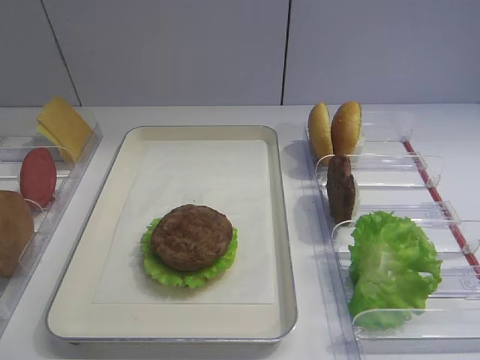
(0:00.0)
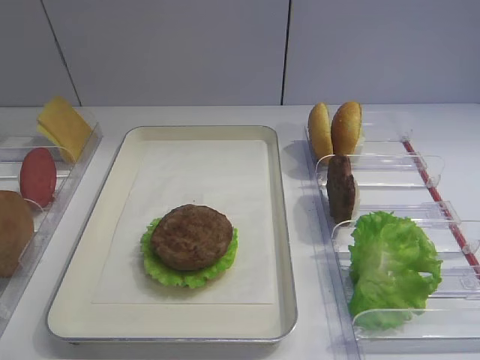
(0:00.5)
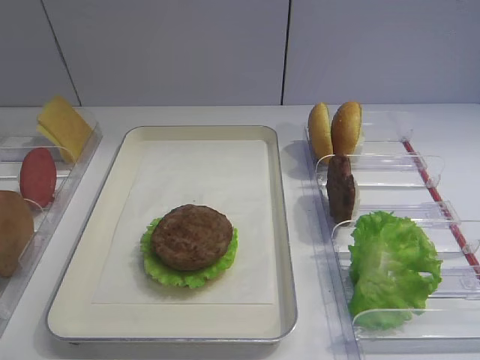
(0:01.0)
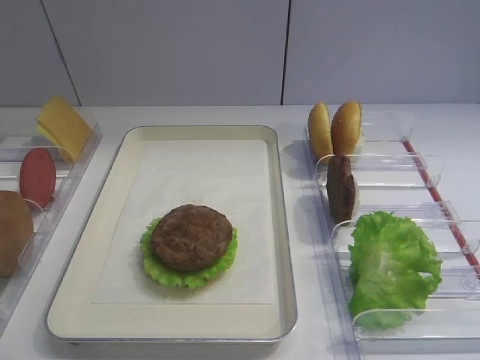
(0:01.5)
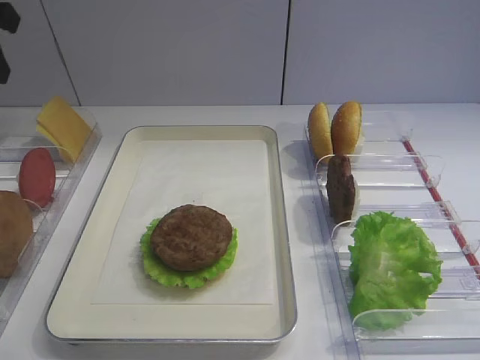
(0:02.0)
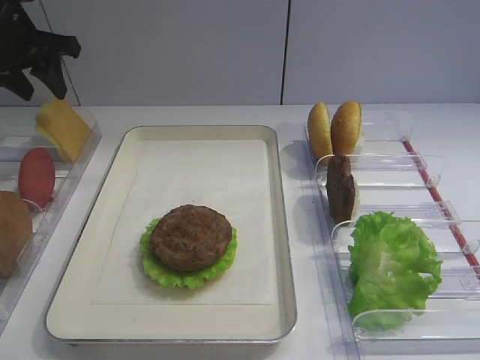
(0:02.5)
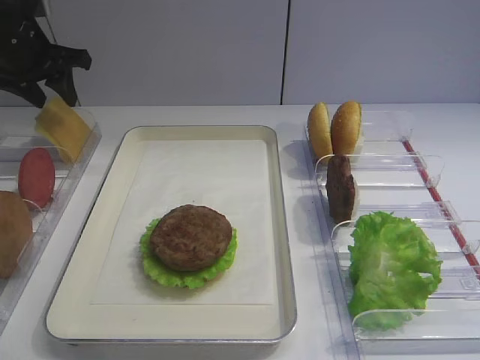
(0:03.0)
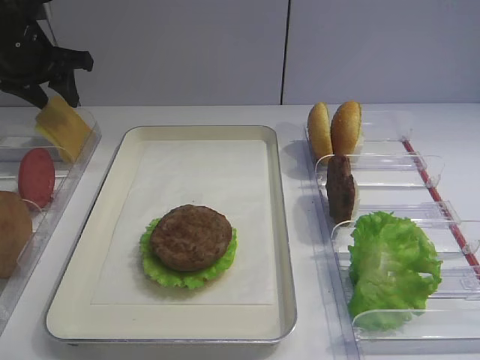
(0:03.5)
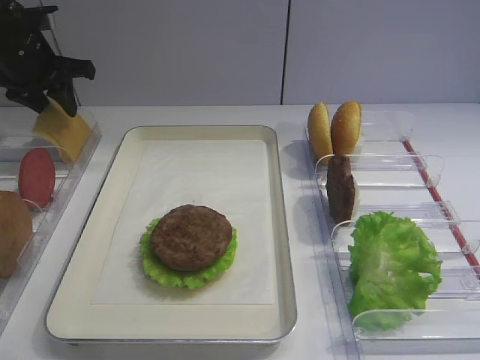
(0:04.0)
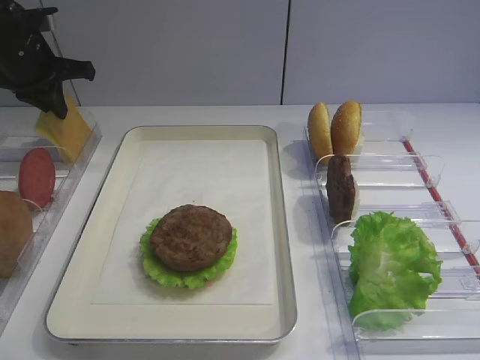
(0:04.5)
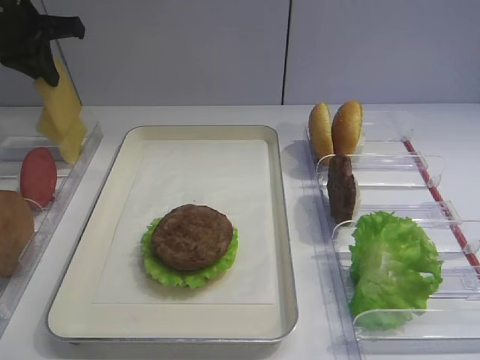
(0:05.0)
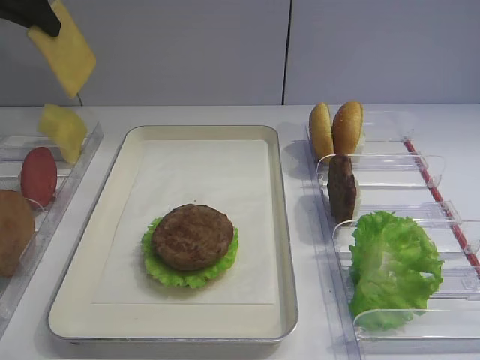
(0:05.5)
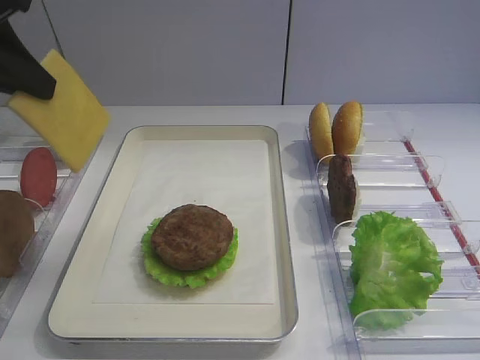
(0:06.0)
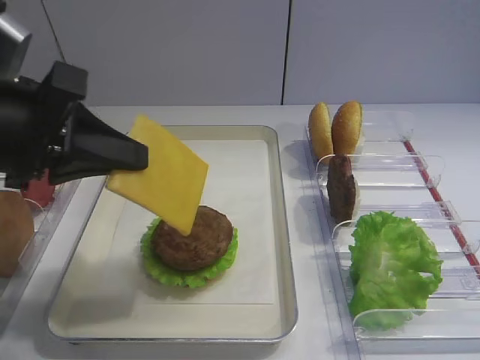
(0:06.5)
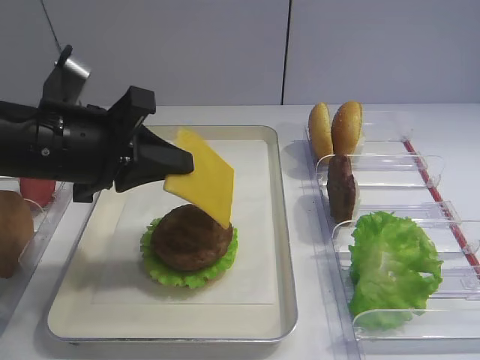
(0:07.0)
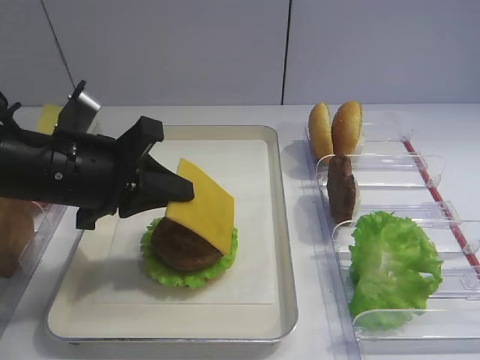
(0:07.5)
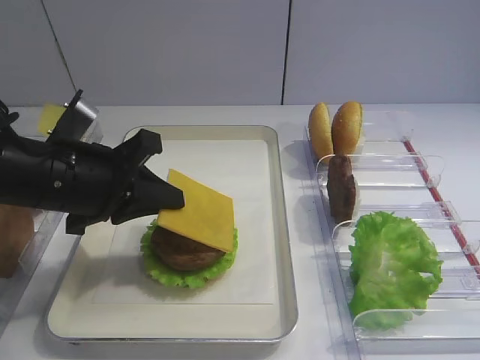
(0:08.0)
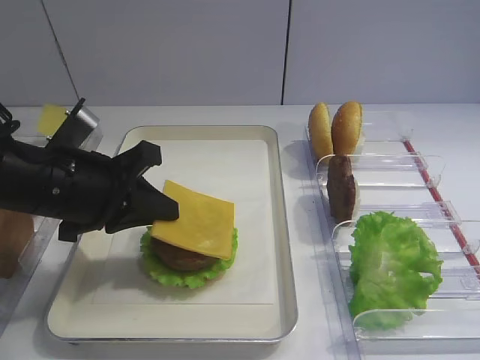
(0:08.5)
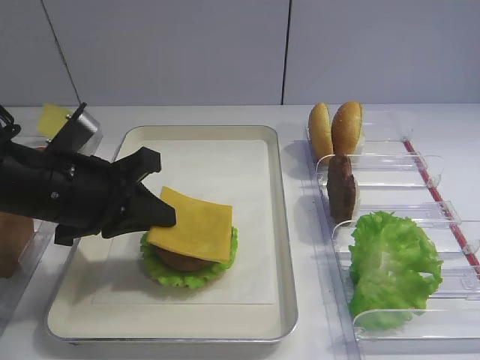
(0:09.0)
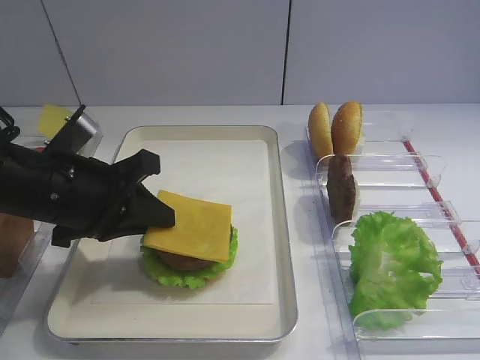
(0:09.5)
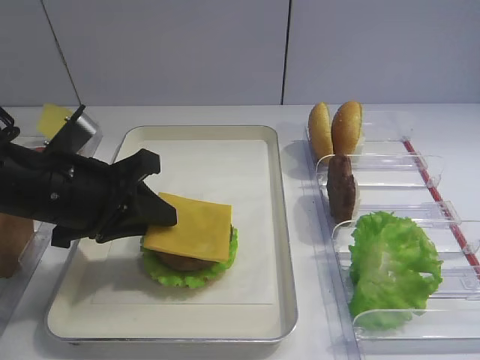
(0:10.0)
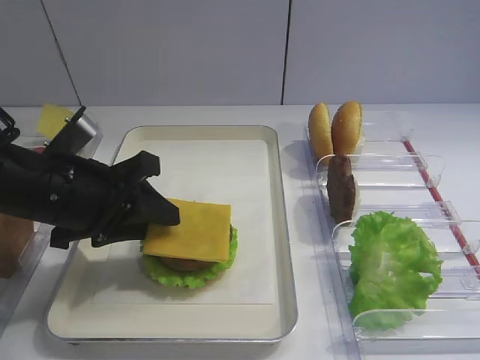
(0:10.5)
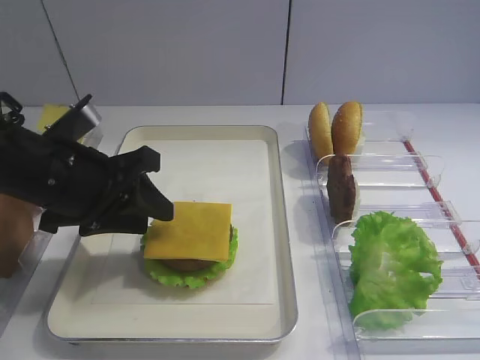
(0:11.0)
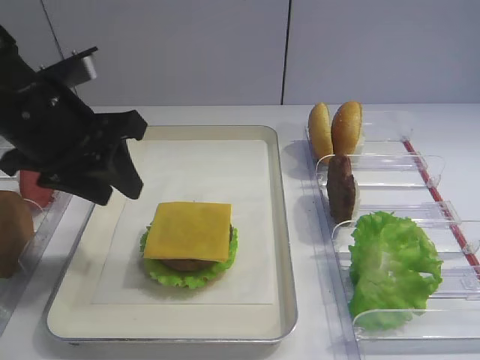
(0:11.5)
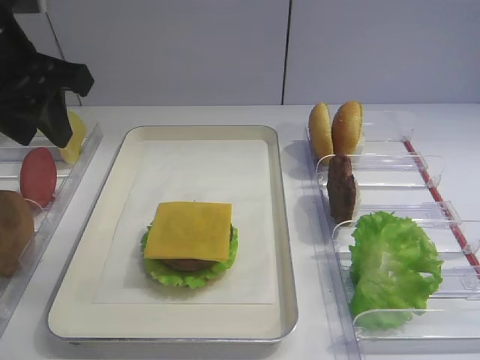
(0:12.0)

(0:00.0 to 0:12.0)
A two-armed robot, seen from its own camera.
Step, 0:00.0 - 0:05.0: Pick up the cheese slice with the left gripper.
Step, 0:05.5 - 0:11.0: Place the cheese slice on the cutlet with the left gripper.
0:02.0 - 0:04.0: The left gripper shifts approximately 15 cm forward and downward.
0:04.0 - 0:06.0: The left gripper shifts roughly 20 cm backward and upward, and closes.
0:06.0 - 0:08.0: The left gripper goes about 20 cm downward and to the right.
0:08.0 - 0:10.0: The left gripper opens up.
0:10.0 - 0:12.0: The left gripper moves upward, about 15 cm, and opens its fingers.

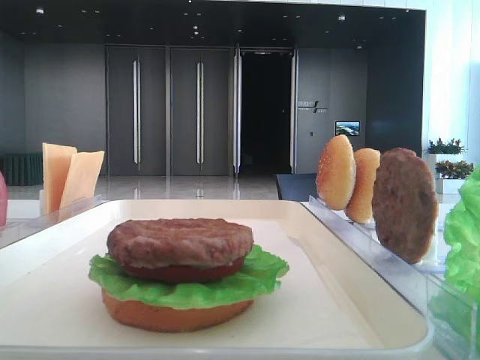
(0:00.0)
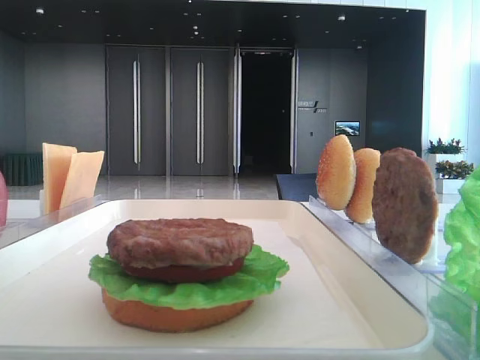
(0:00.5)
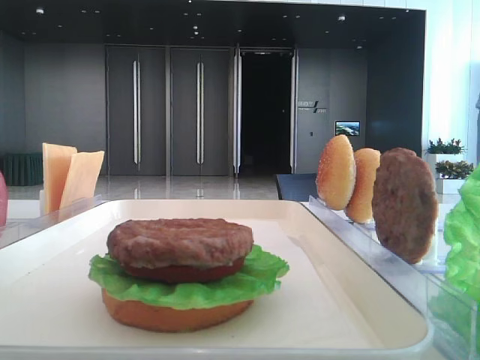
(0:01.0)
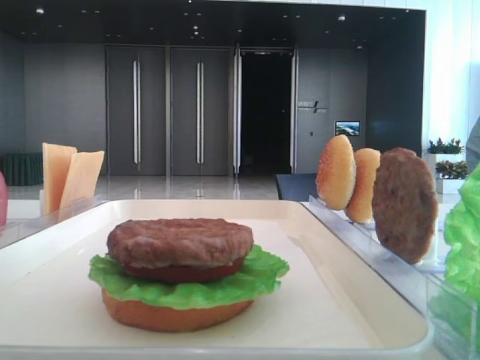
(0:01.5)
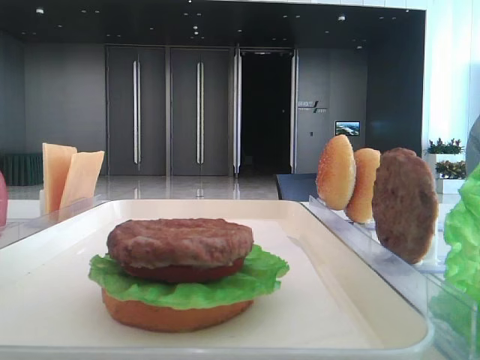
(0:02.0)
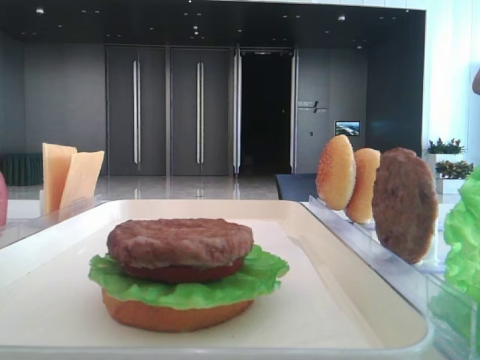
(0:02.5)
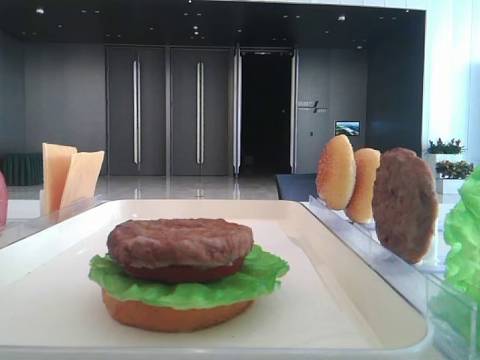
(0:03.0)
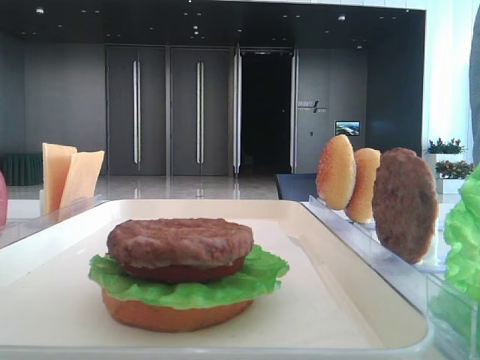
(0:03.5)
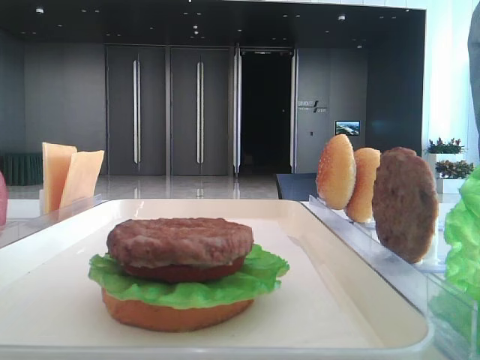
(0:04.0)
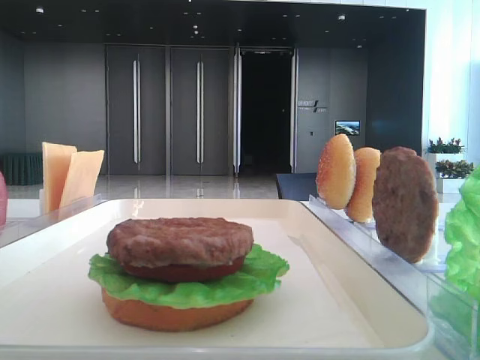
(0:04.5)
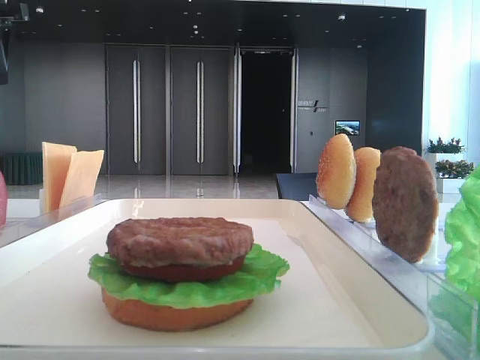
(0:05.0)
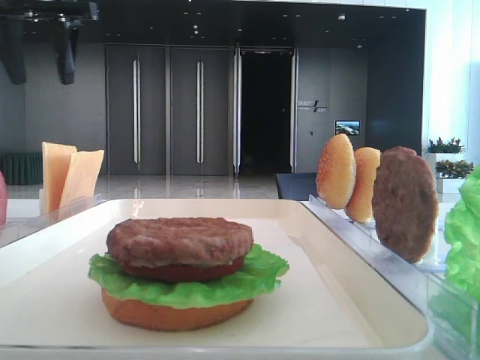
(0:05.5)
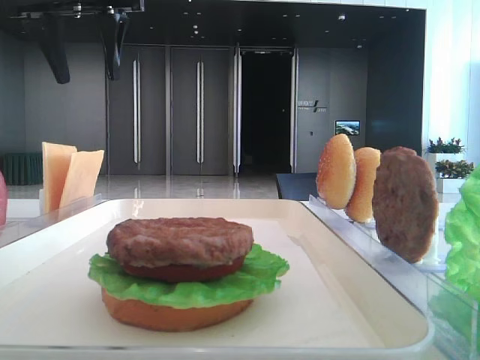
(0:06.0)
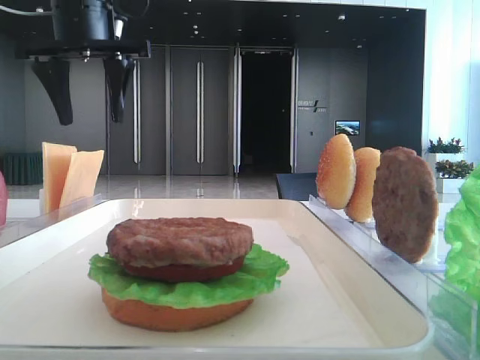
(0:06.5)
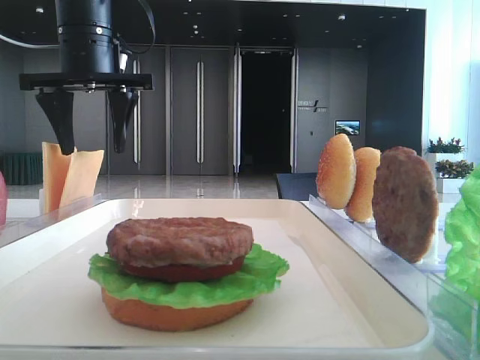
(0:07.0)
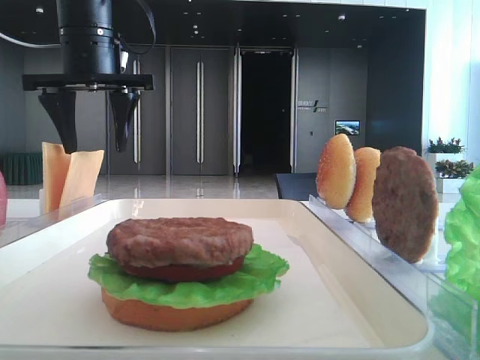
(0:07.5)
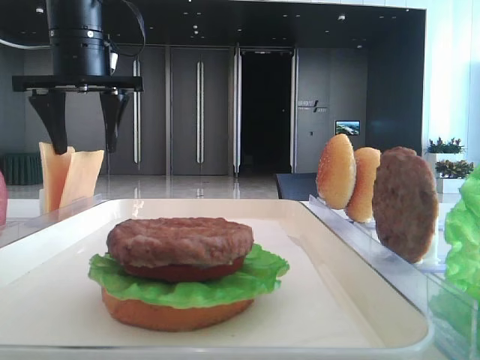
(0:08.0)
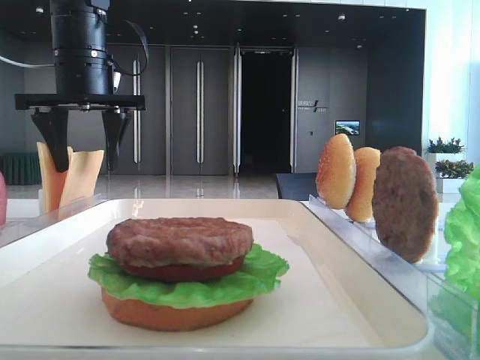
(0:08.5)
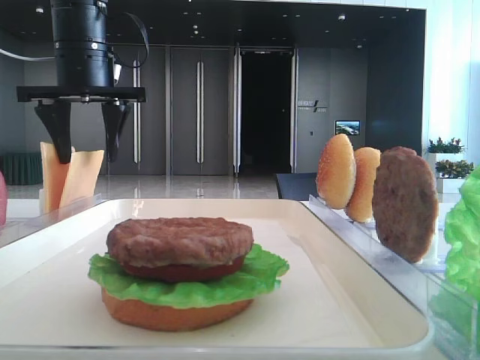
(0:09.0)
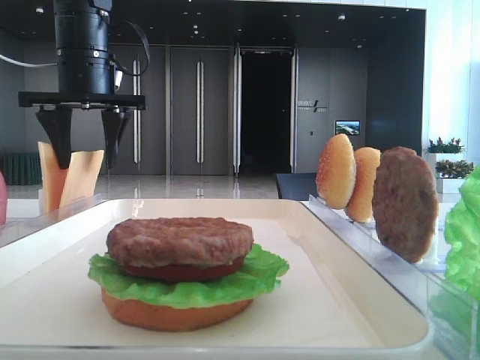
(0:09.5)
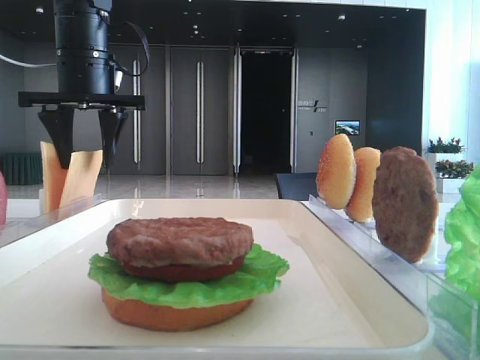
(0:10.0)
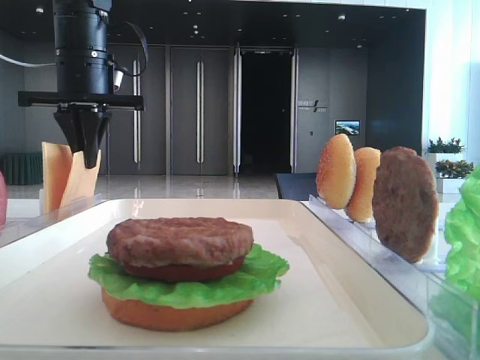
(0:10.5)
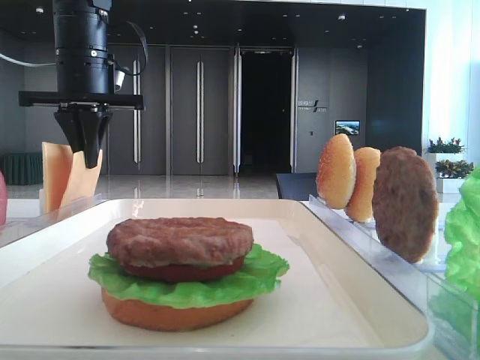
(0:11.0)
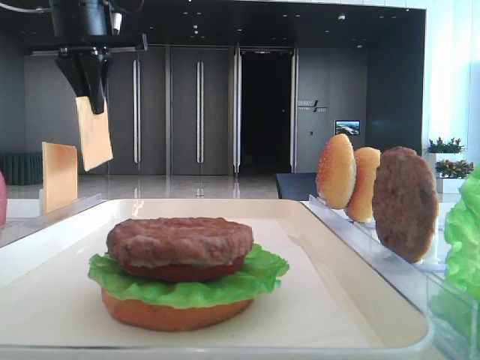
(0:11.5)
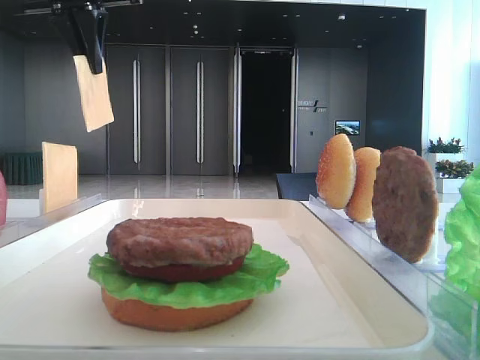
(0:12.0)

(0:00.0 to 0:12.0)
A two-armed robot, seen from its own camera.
Step, 0:00.0 - 0:10.0: Pick up the cheese slice with the left hand.
0:04.0 - 0:06.0: The left gripper heads forward and to the right, covering about 20 cm.
0:06.0 - 0:08.0: The left gripper travels downward by some 10 cm.
0:08.0 - 0:10.0: The grippers make only small movements.
0:10.0 - 0:12.0: The left gripper travels upward by approximately 10 cm, and closes its fingers.

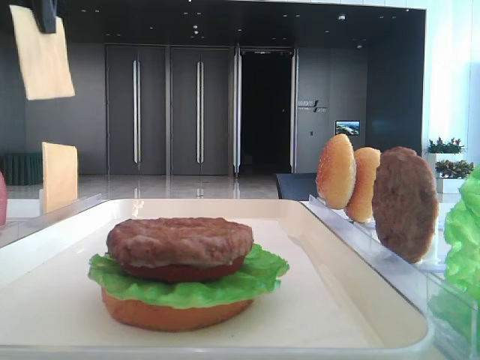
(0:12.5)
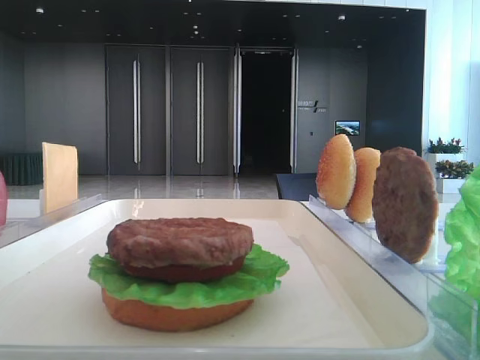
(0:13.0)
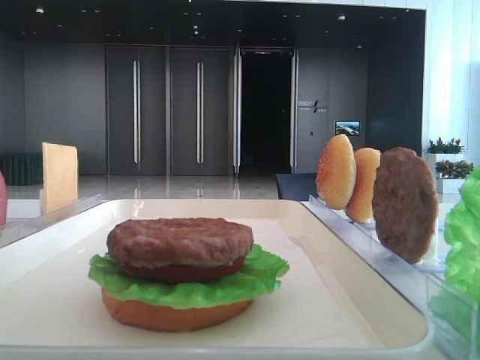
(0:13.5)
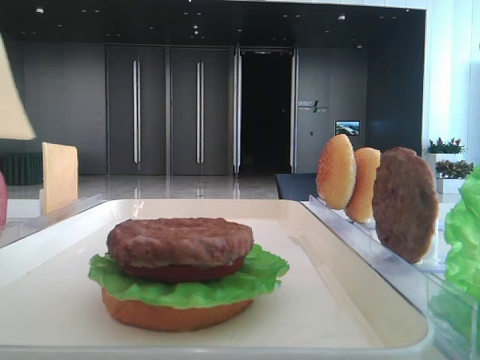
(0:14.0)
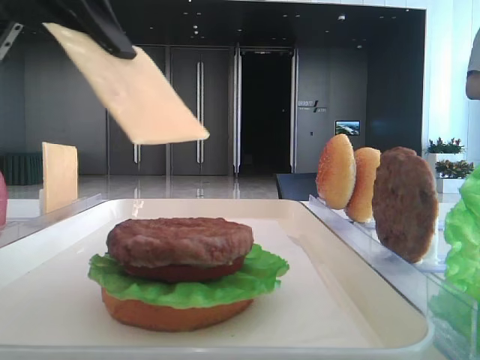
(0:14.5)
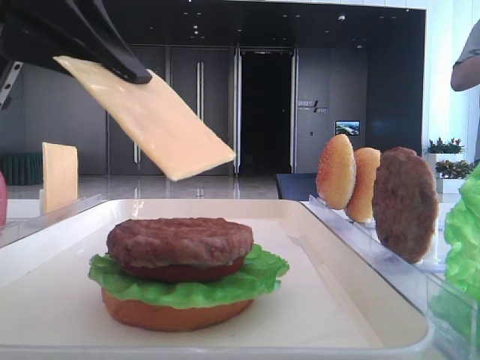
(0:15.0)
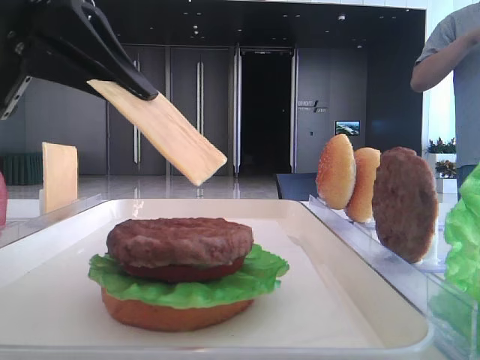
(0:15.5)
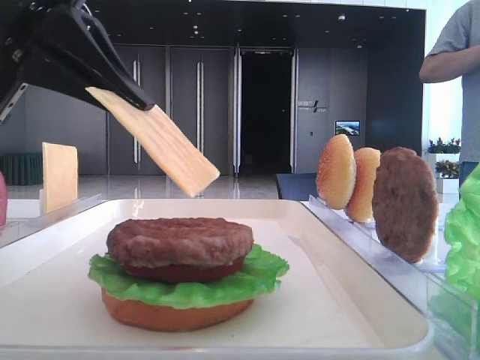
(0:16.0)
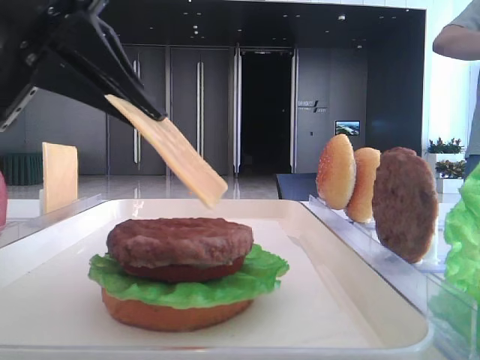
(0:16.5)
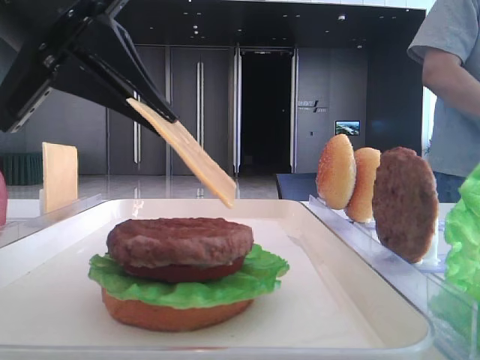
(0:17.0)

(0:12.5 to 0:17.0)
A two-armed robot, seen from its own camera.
0:12.5 - 0:14.5: The left gripper moves downward and backward, roughly 15 cm.
0:14.5 - 0:17.0: The left gripper changes place by some 5 cm.
